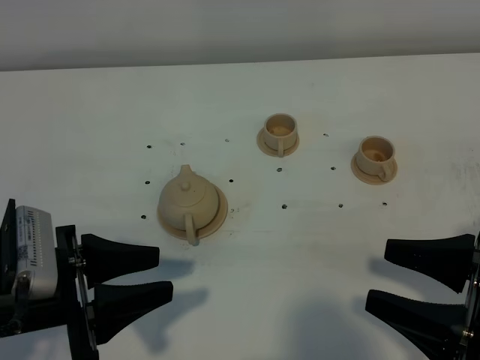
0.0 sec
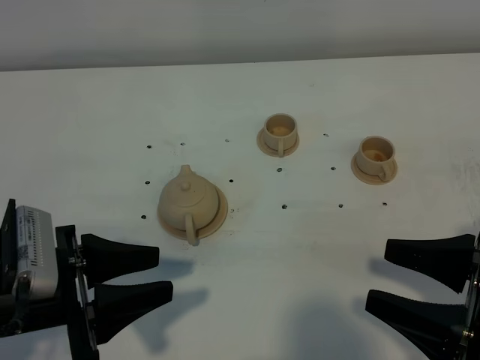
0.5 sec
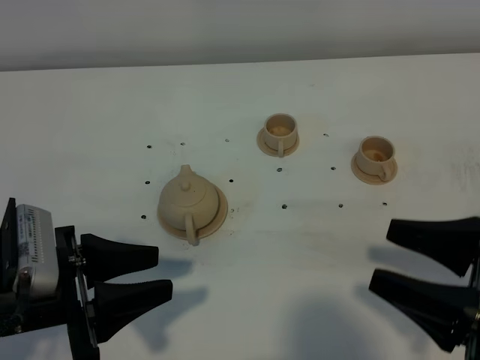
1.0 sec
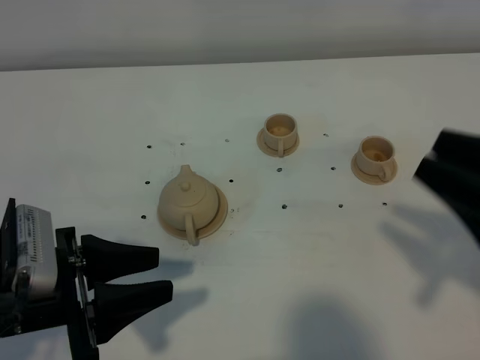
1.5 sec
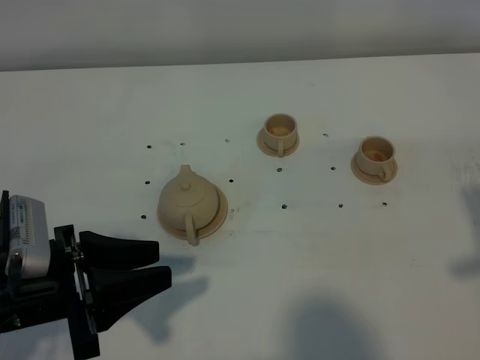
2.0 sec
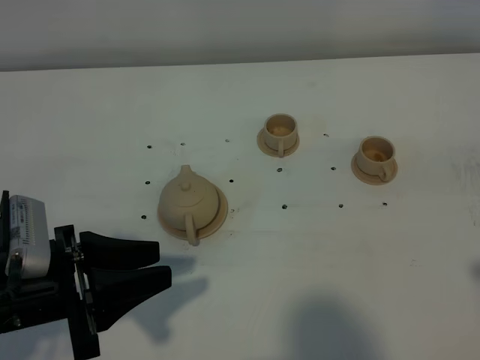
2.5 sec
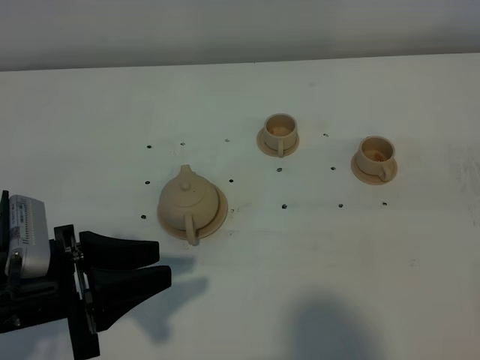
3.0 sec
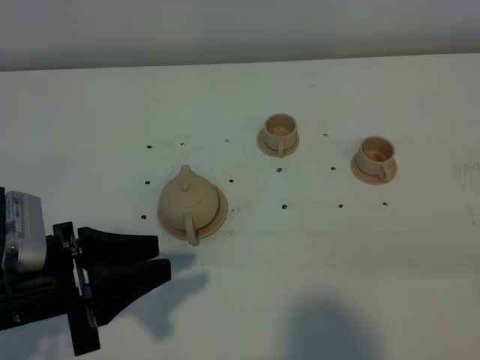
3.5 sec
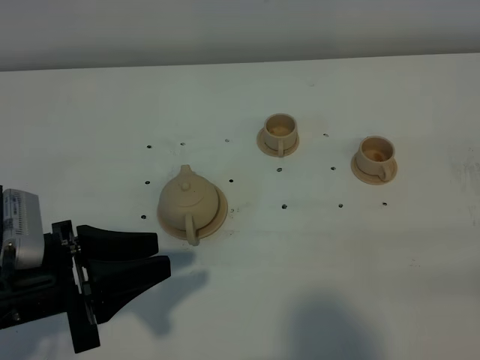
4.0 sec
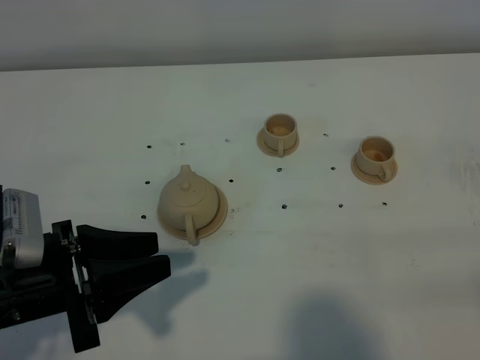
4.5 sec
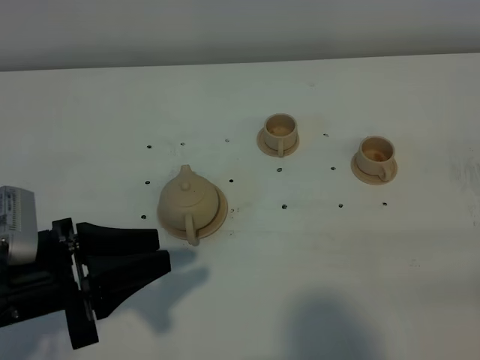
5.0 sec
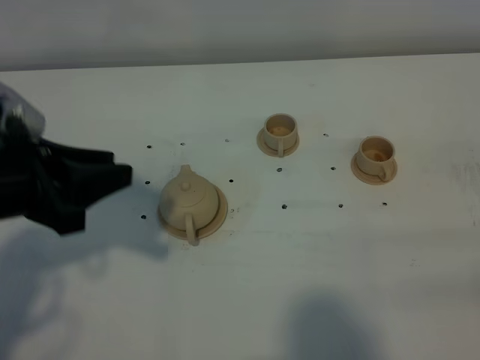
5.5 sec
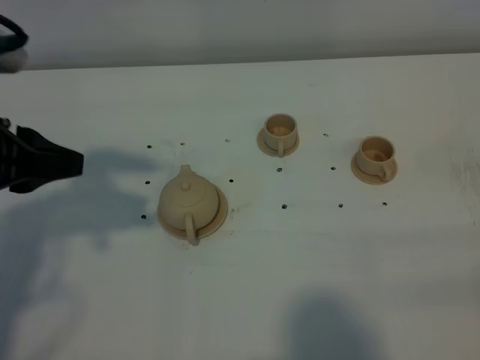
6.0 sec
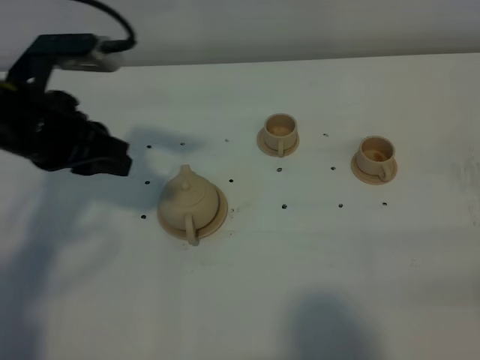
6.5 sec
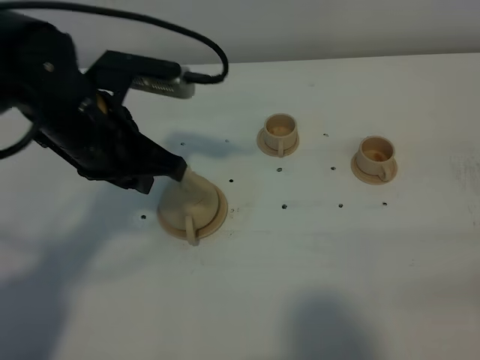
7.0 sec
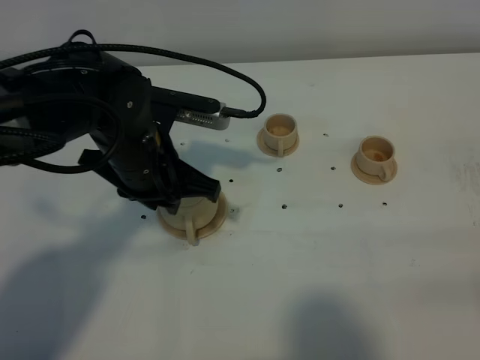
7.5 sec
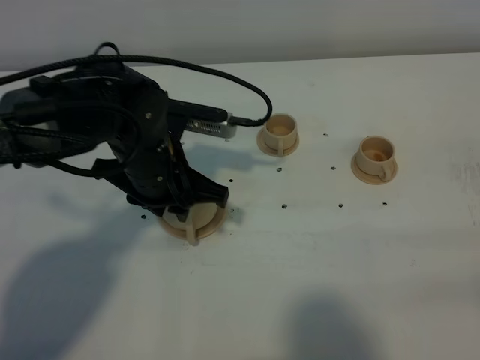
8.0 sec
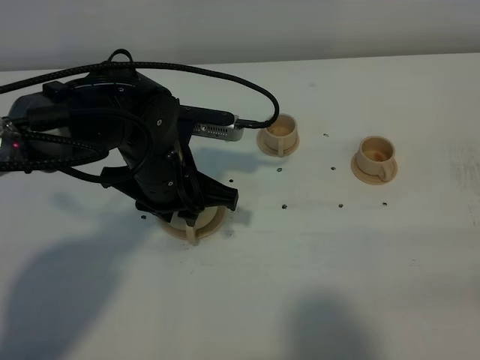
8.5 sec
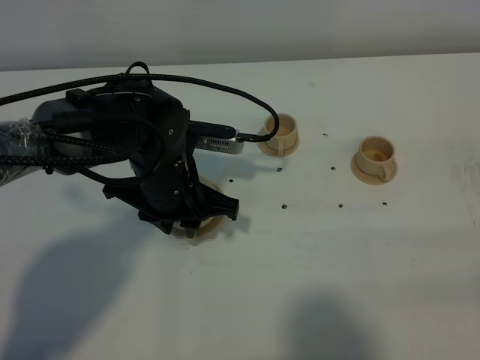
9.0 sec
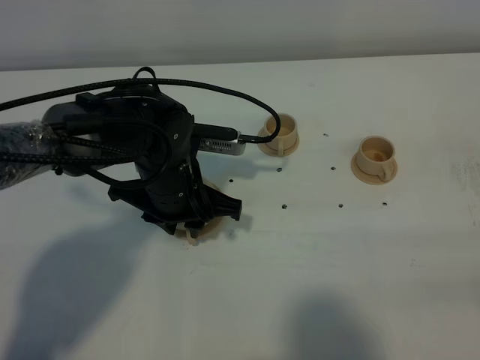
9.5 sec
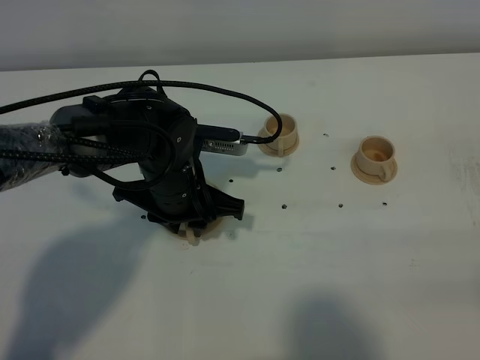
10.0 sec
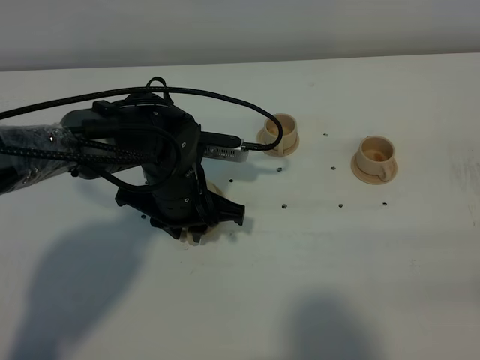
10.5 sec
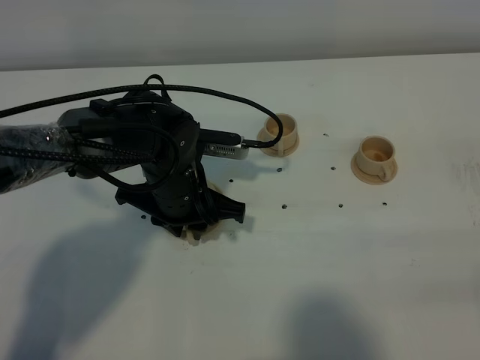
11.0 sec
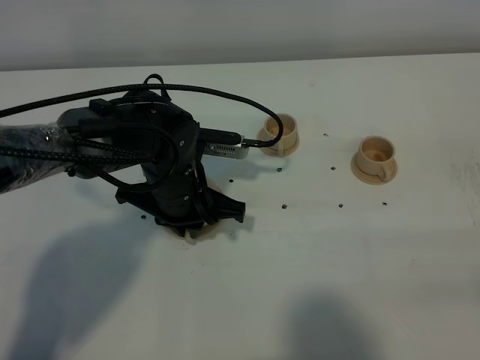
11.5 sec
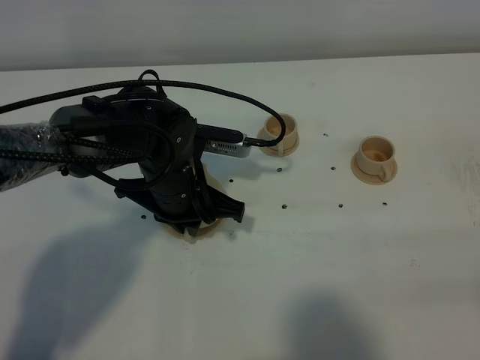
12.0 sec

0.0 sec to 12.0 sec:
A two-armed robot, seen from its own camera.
Task of the whole recording: grasp the brown teapot and pour the tea into the two brown teacups one by one, put the brown teapot back in its original place.
0.0 sec to 2.0 sec: The right gripper shifts approximately 10 cm upward, and closes.
2.0 sec to 4.0 sec: The right gripper shifts roughly 10 cm backward and downward.
4.0 sec to 6.0 sec: The left gripper is displaced upward and forward by about 15 cm.
6.0 sec to 8.0 sec: The left gripper shifts roughly 20 cm to the right, downward and forward.
8.0 sec to 10.0 sec: The right gripper opens its fingers.
10.0 sec to 12.0 sec: The left gripper closes its fingers.

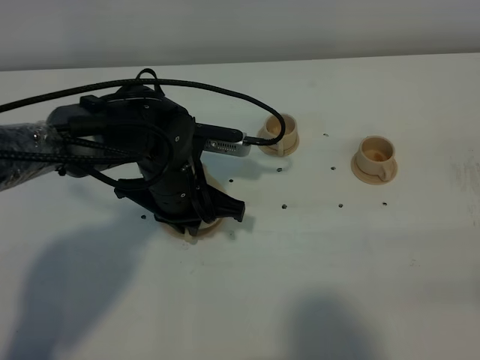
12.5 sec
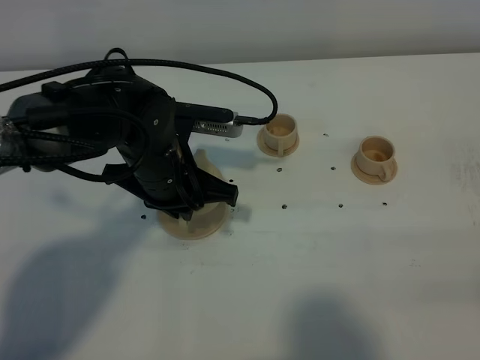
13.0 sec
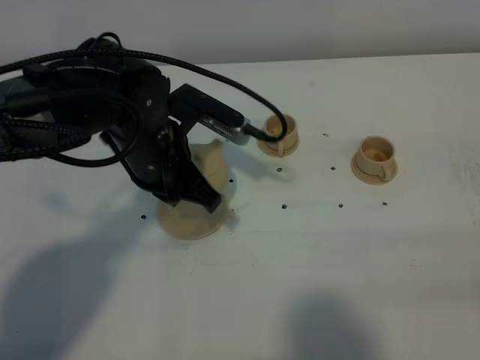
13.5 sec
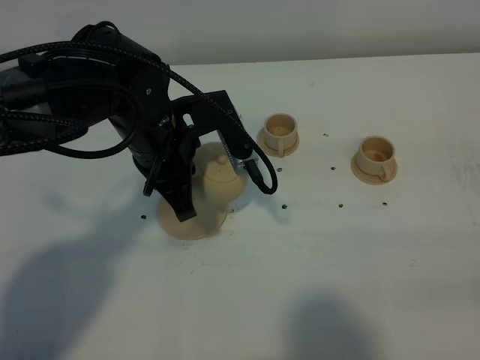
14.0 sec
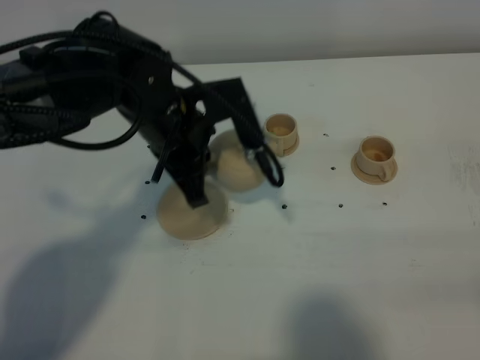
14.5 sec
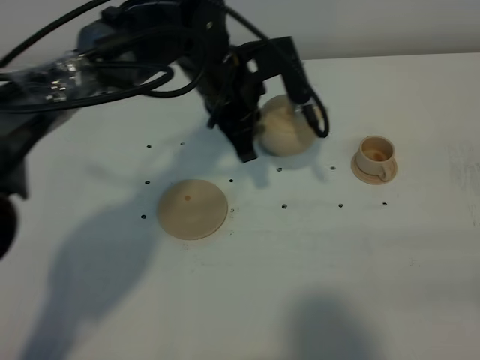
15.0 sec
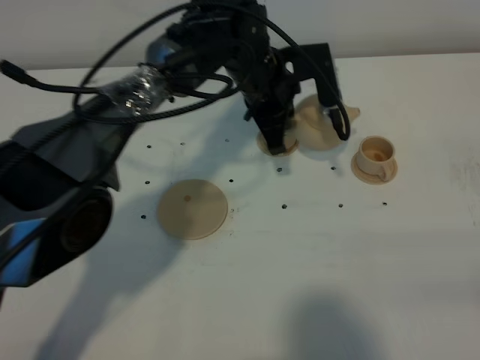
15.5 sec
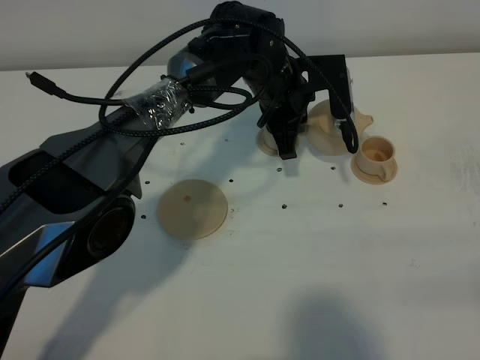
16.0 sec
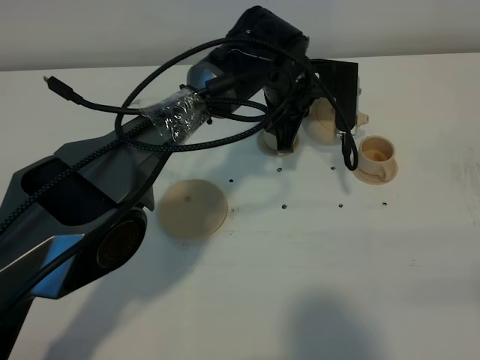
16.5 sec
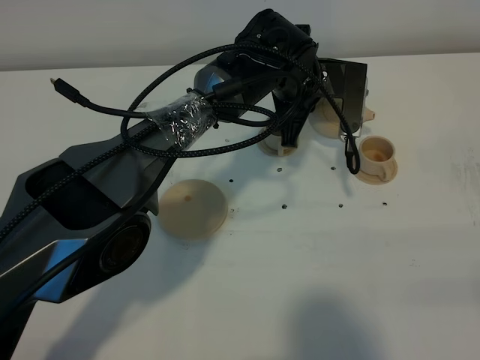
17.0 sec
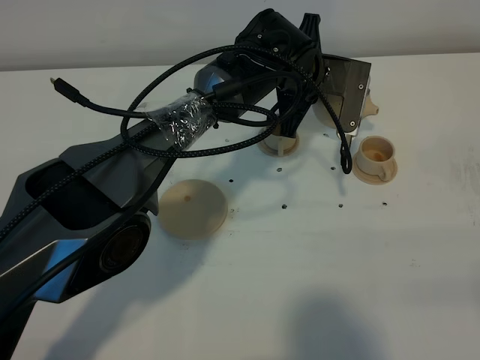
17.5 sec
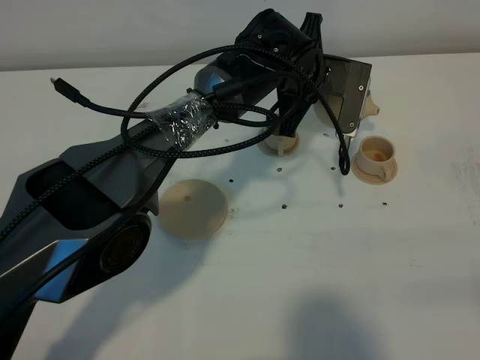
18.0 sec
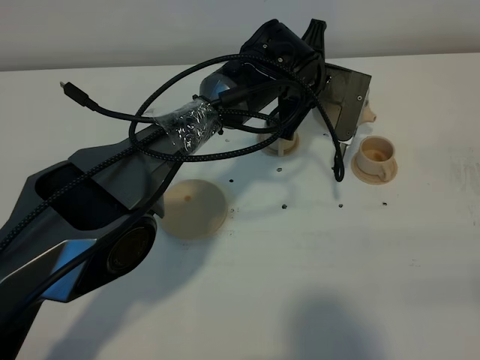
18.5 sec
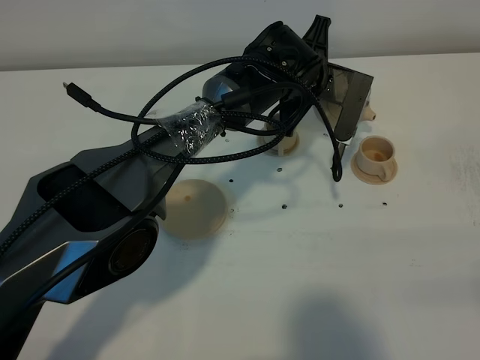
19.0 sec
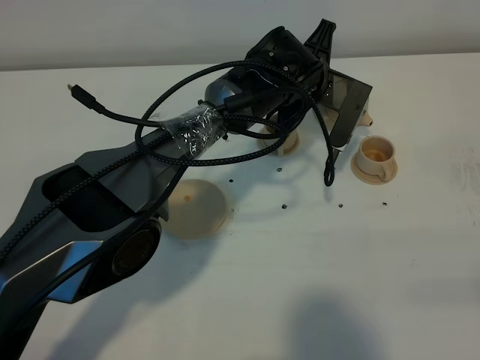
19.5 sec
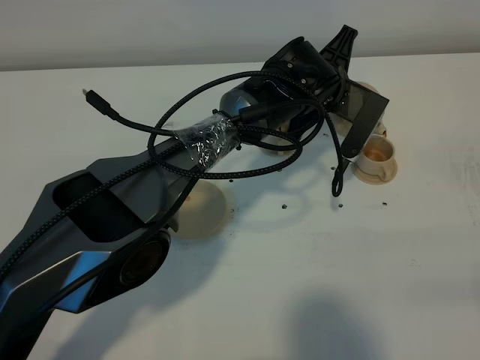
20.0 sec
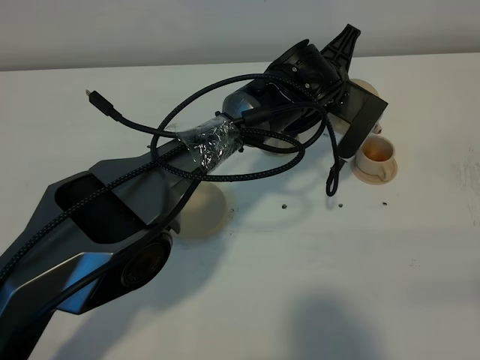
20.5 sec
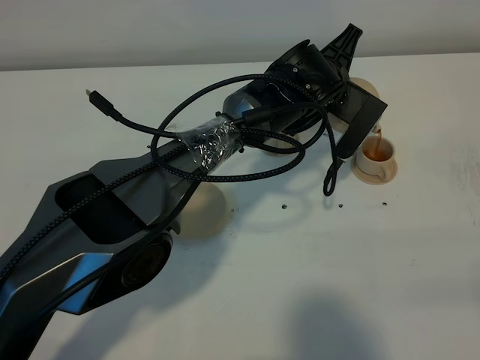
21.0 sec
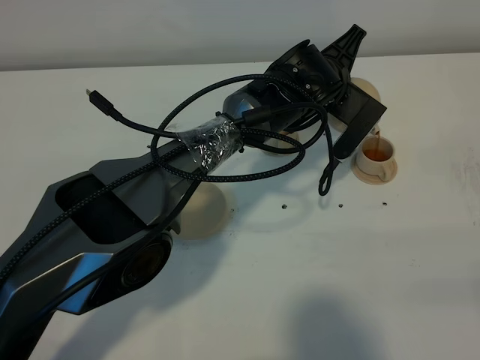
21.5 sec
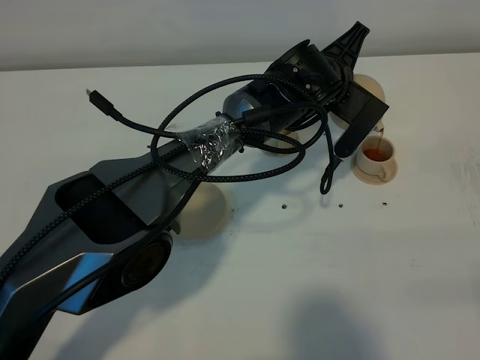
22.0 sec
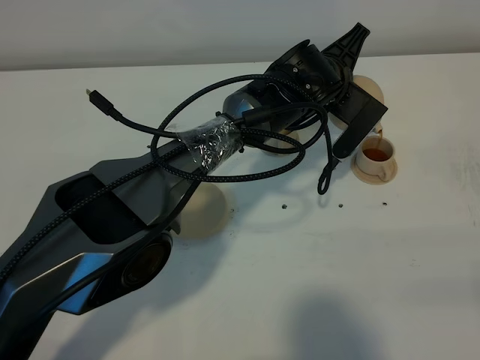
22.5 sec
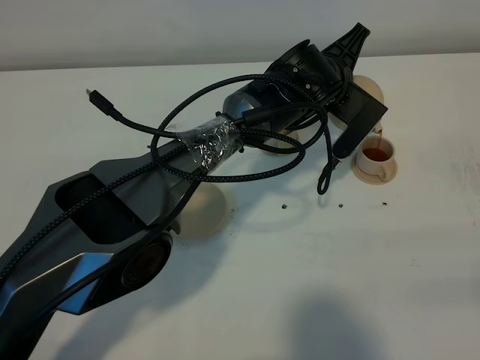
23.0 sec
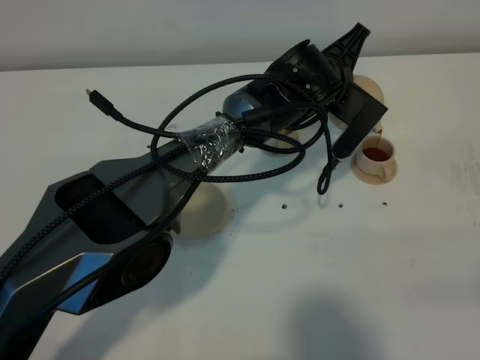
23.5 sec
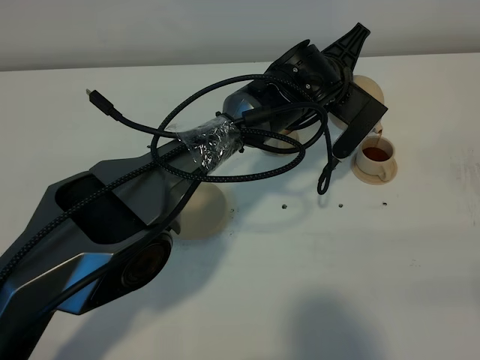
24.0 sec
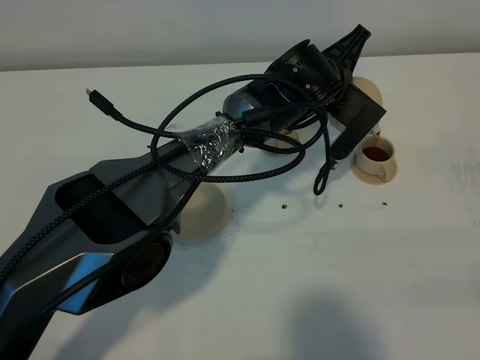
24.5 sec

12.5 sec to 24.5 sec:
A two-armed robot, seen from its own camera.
Task of the whole recording: grasp the brown teapot and pour the tea into the two brown teacups one by one, put the brown teapot back in its original place.
12.5 sec to 14.5 sec: The left gripper travels upward by about 10 cm.
14.5 sec to 16.5 sec: The left gripper goes about 15 cm to the right, forward and downward.
16.5 sec to 18.5 sec: The grippers stay close to where they were, moving slightly.
20.5 sec to 22.5 sec: The grippers move only a little.
22.5 sec to 24.5 sec: Both grippers stay put.

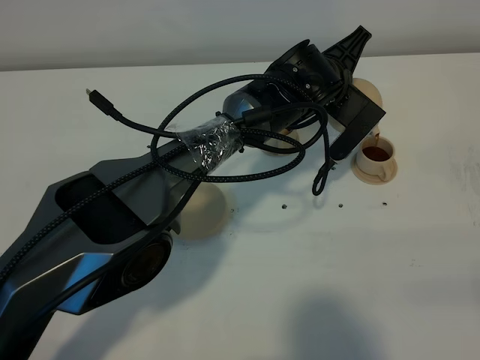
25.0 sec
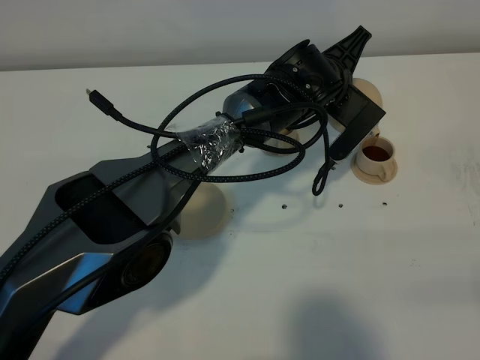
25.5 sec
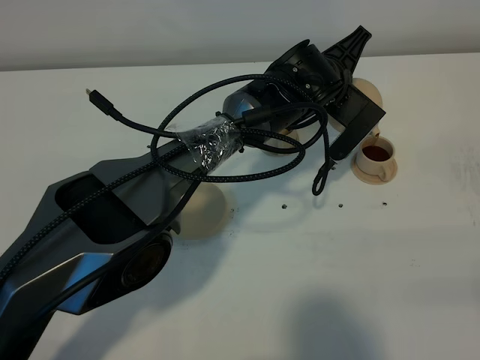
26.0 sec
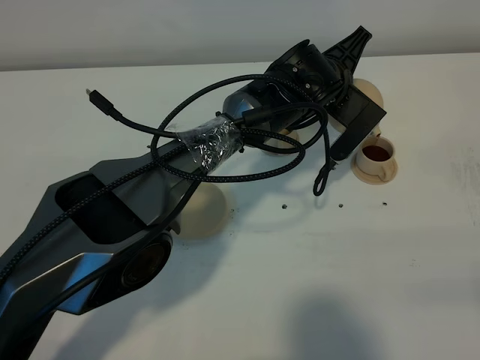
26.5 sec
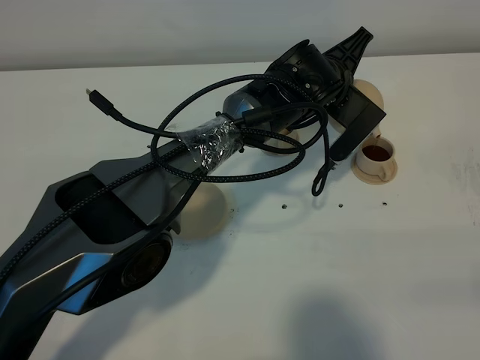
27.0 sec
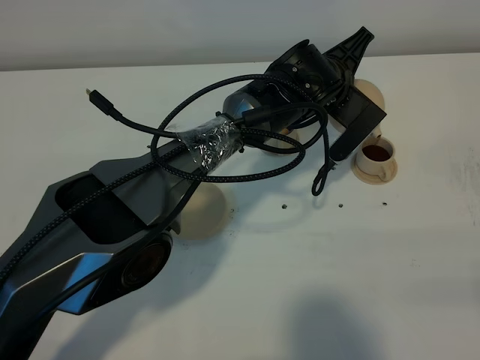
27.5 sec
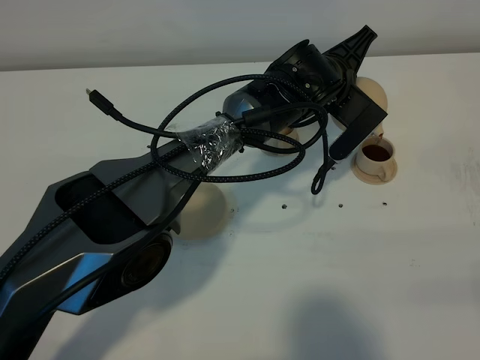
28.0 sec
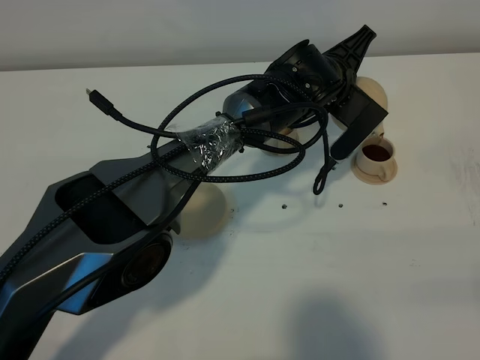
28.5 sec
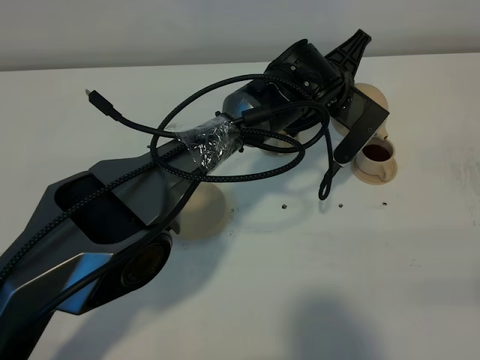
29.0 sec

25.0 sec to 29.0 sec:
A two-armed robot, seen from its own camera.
Task of the whole recording: grasp the brown teapot and pour the tea into the two brown teacups one by one, put the brown teapot back in its original place.
25.0 sec to 27.0 sec: The two grippers keep their place.
27.0 sec to 29.0 sec: The grippers move only a little.
